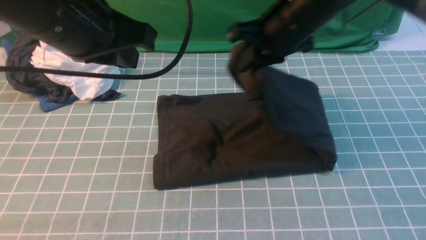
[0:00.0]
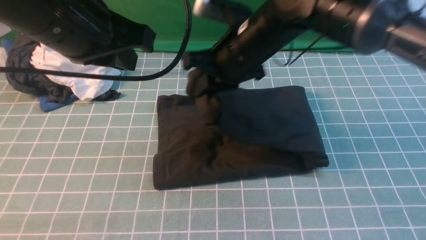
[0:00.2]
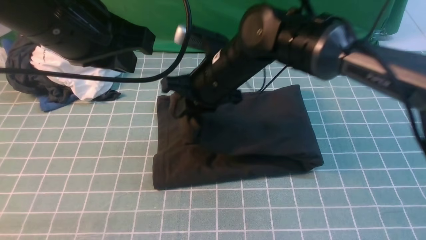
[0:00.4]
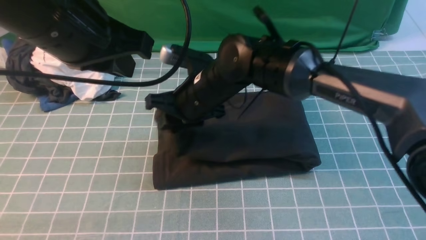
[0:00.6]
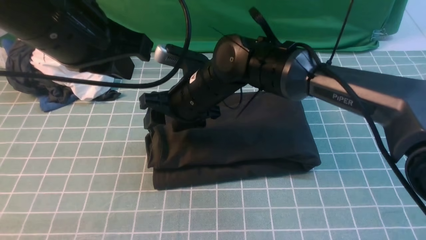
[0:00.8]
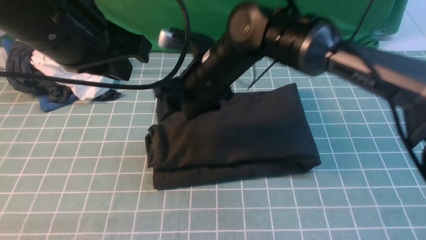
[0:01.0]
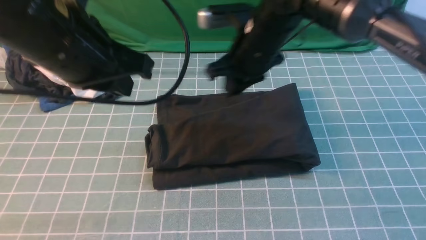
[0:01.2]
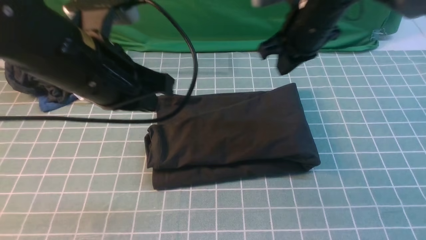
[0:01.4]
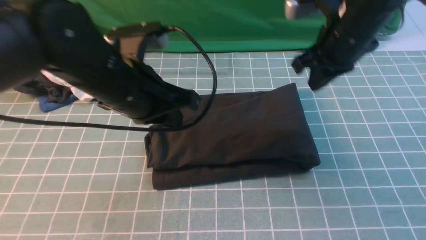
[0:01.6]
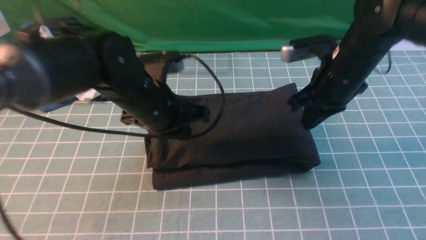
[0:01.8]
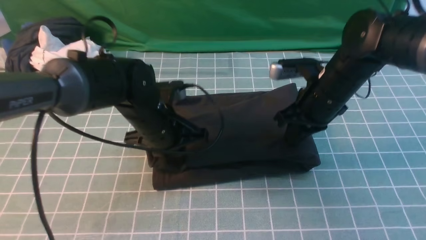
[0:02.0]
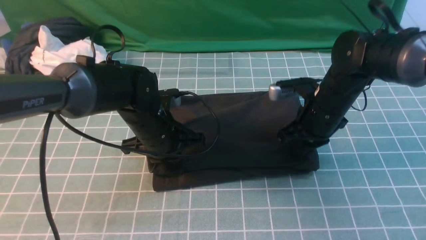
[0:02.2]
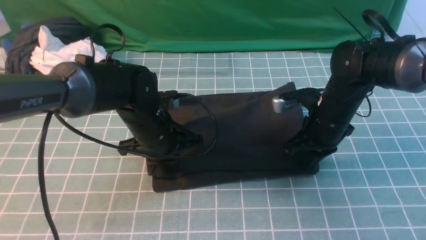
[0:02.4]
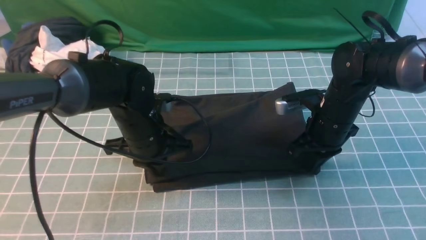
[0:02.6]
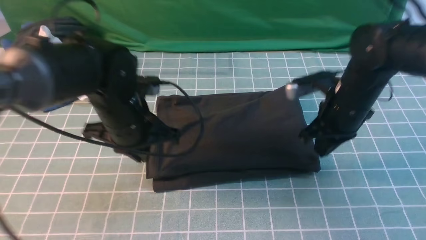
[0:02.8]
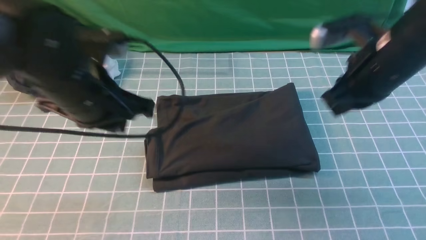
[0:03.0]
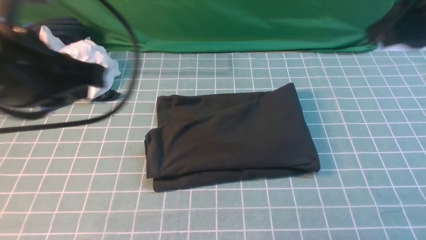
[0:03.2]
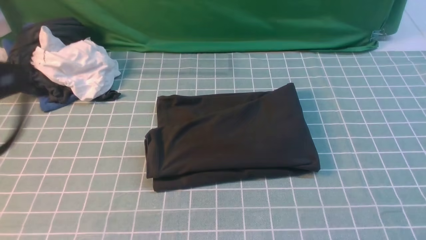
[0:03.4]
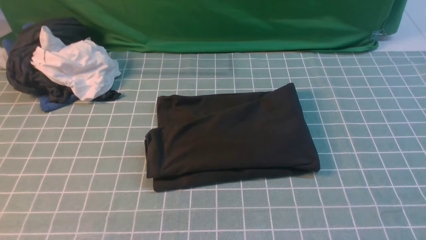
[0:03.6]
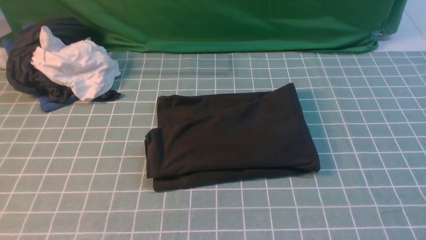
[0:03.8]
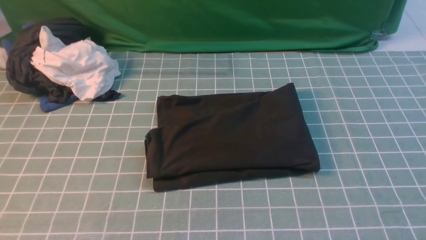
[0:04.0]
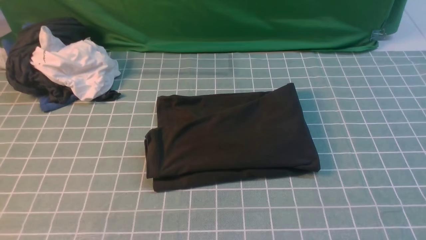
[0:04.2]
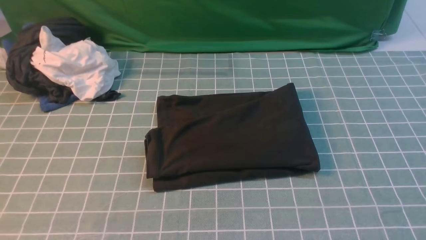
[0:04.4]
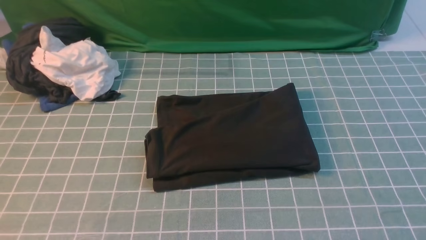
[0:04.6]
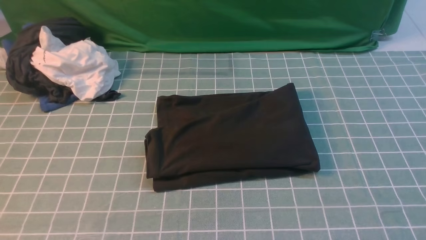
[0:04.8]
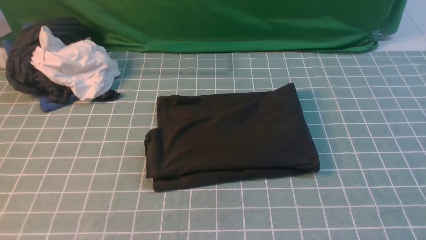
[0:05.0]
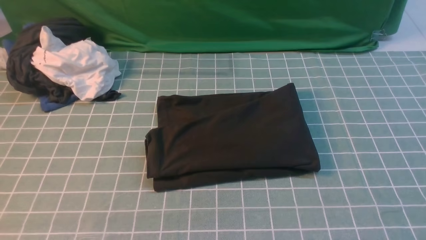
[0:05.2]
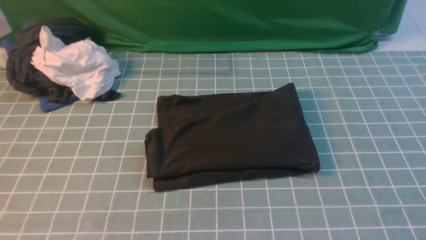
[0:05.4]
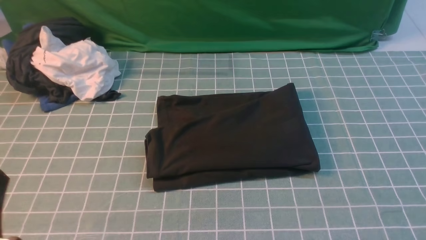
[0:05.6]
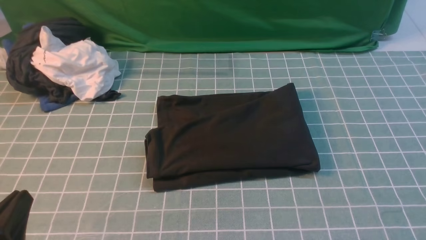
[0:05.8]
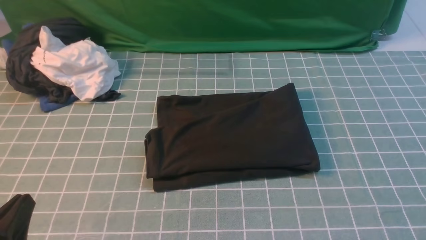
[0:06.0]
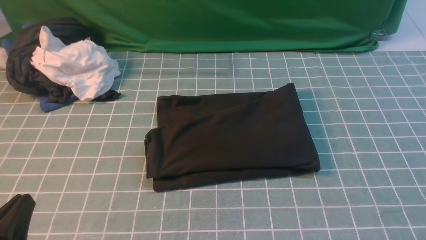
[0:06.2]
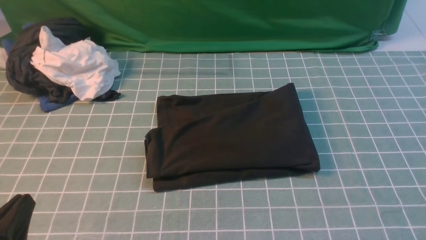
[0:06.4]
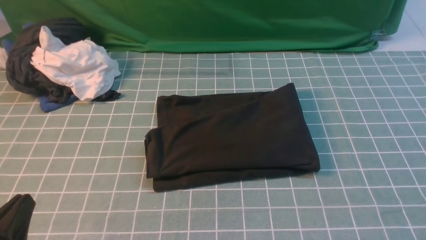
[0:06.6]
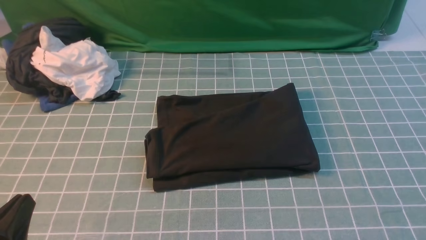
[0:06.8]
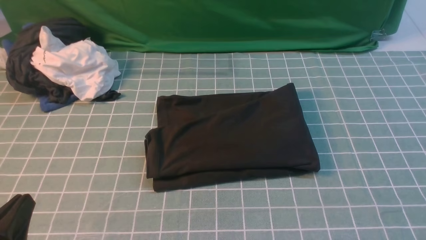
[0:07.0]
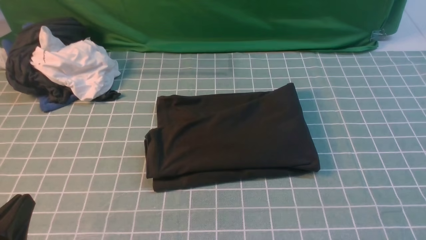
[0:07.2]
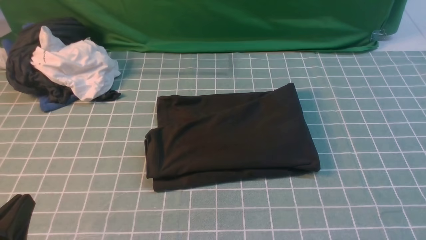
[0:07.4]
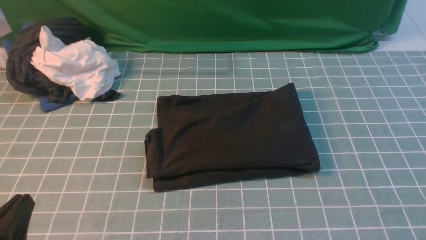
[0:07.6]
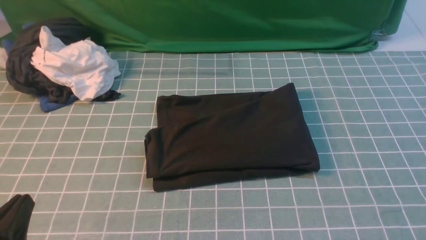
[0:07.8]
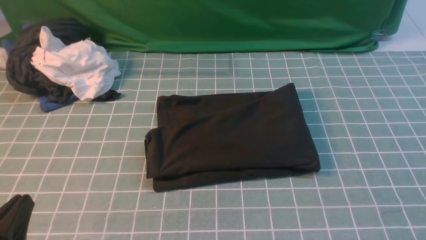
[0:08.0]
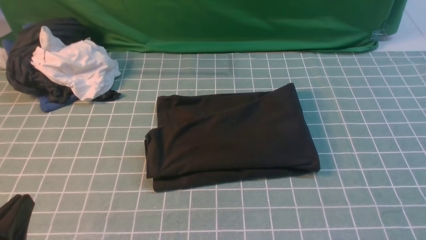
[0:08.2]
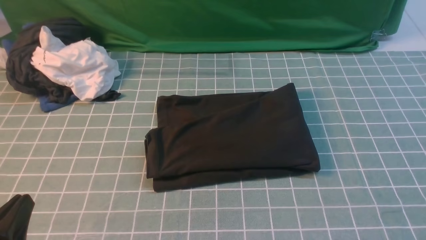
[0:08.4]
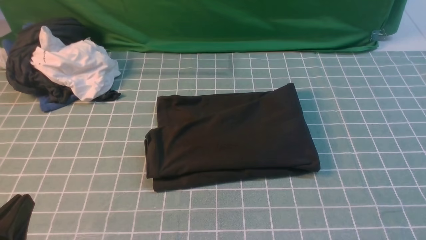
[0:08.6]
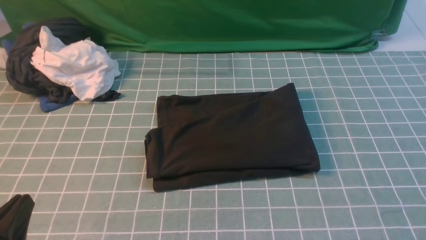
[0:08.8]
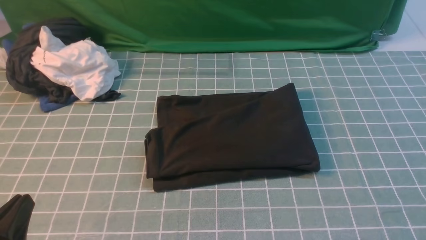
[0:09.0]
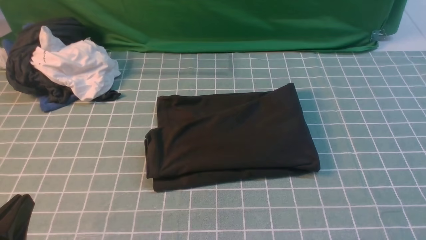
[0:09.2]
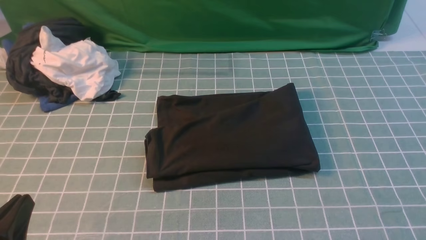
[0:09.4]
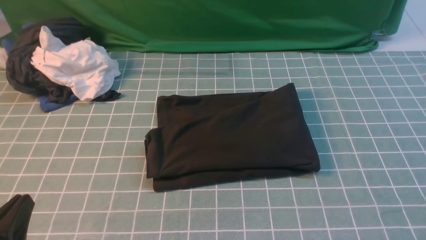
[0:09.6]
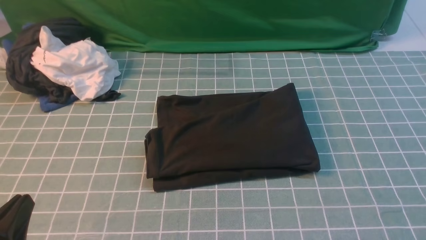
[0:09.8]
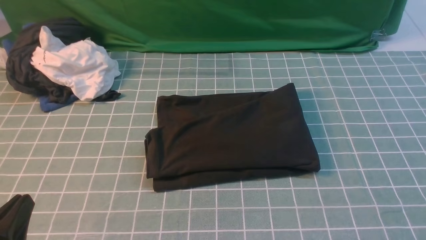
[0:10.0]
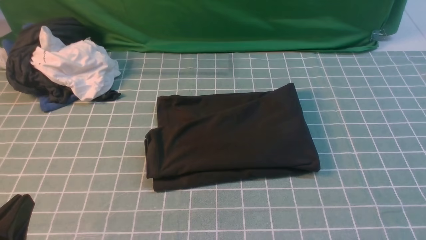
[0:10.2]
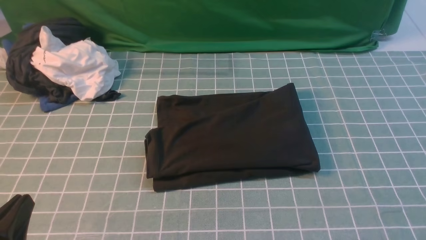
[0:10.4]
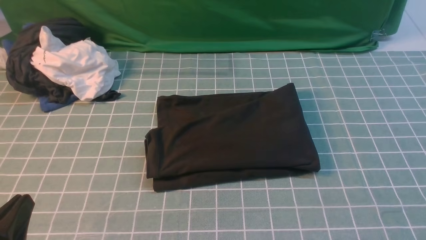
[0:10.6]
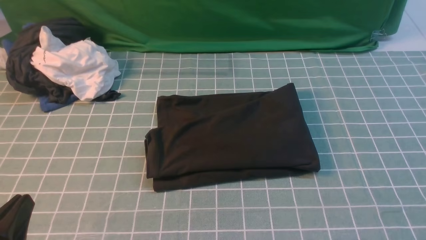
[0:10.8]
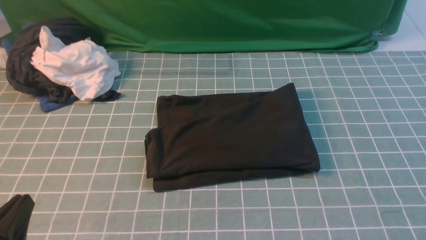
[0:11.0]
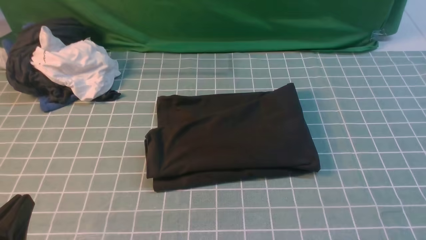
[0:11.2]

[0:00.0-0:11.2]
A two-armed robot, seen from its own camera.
Step, 0:00.0 to 0:01.2: use the right arm to drag the right edge of the fabric to the left and folds it over the left edge.
0:00.0 to 0:01.6: The right gripper heads to the right, covering approximately 5 cm, and opens, then closes again; the left gripper moves downward, some 10 cm.
0:01.6 to 0:03.2: The left gripper is displaced backward, upward and to the left by approximately 15 cm, while the right gripper moves backward, upward and to the right, about 20 cm.
0:03.2 to 0:04.8: The left gripper travels backward and downward by roughly 20 cm. Meanwhile the right gripper shifts some 20 cm backward and to the right.
0:04.8 to 0:06.4: The left gripper shifts approximately 10 cm downward.
0:08.0 to 0:11.2: Both grippers stay about where they are.

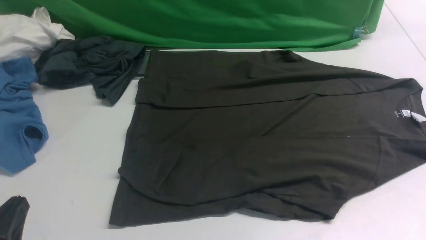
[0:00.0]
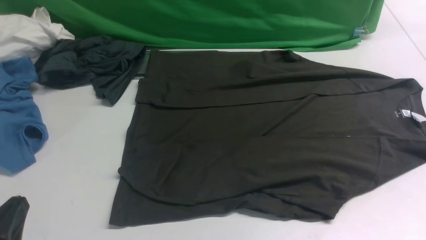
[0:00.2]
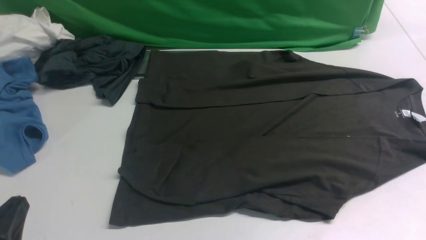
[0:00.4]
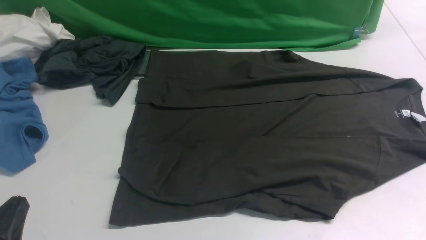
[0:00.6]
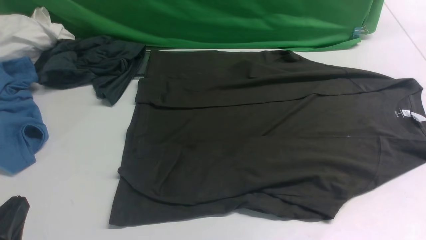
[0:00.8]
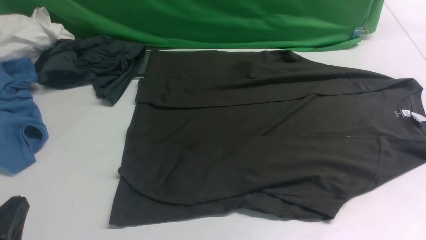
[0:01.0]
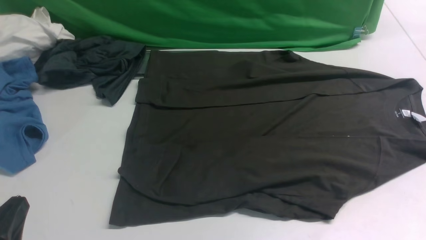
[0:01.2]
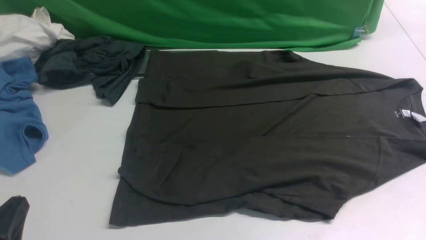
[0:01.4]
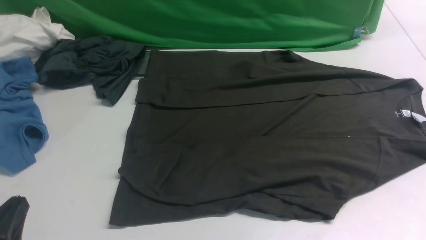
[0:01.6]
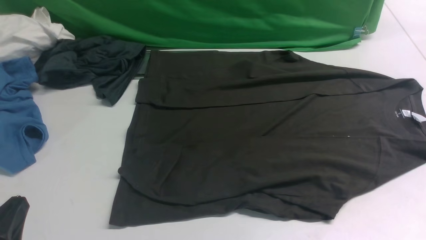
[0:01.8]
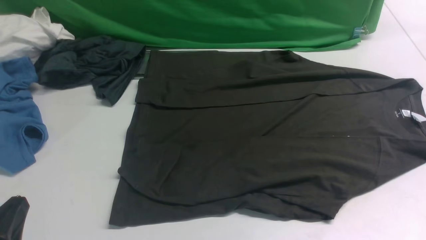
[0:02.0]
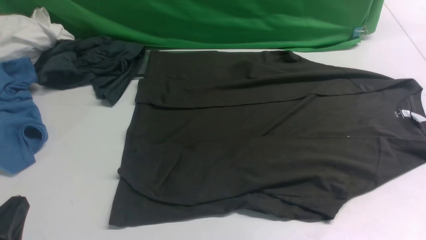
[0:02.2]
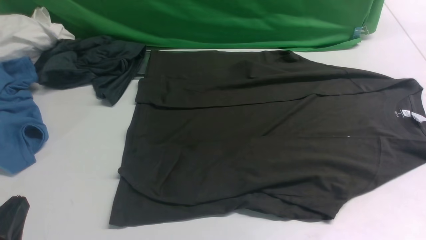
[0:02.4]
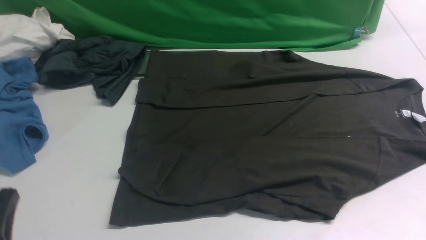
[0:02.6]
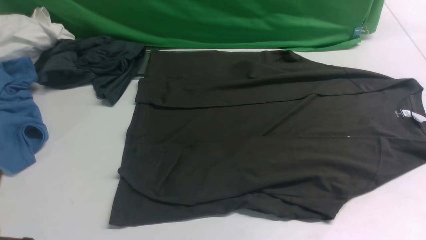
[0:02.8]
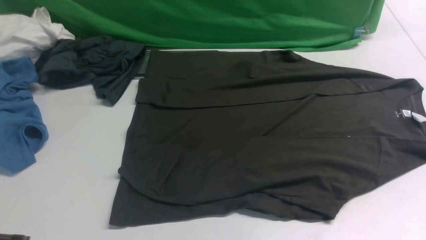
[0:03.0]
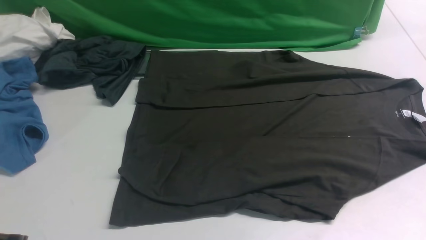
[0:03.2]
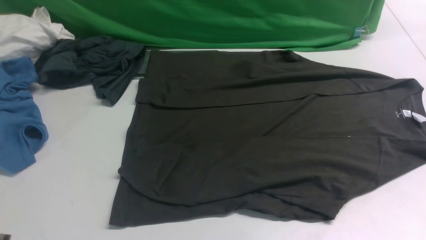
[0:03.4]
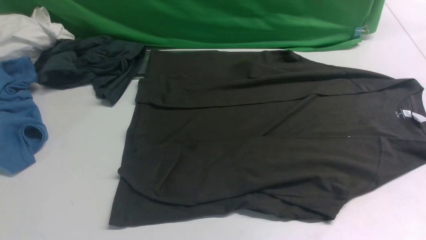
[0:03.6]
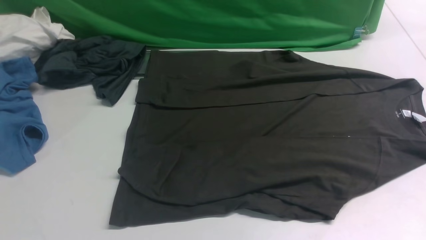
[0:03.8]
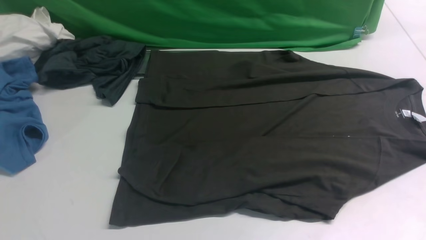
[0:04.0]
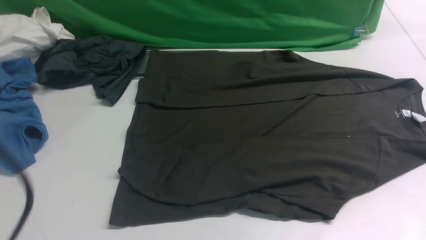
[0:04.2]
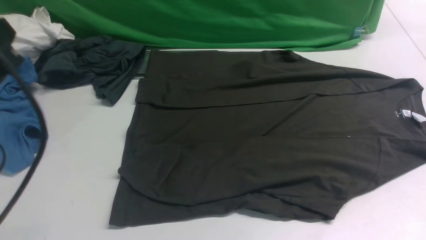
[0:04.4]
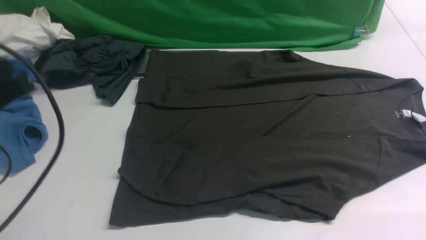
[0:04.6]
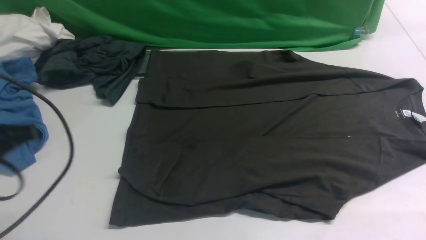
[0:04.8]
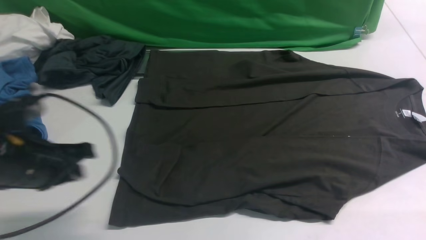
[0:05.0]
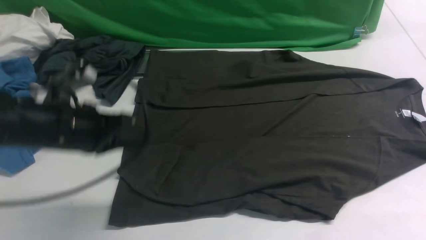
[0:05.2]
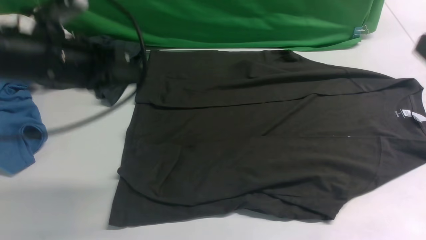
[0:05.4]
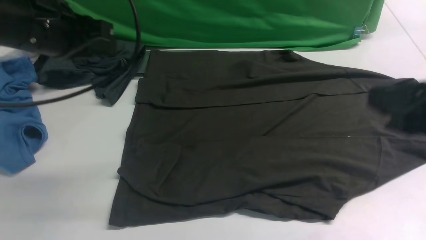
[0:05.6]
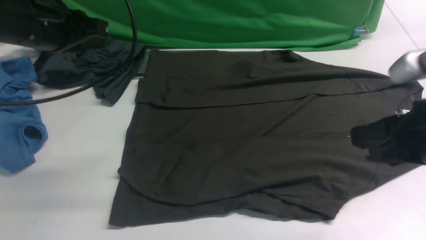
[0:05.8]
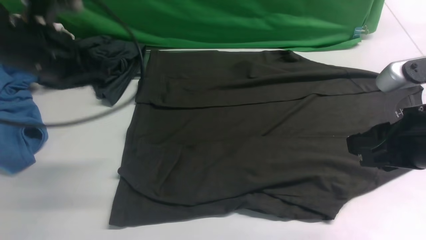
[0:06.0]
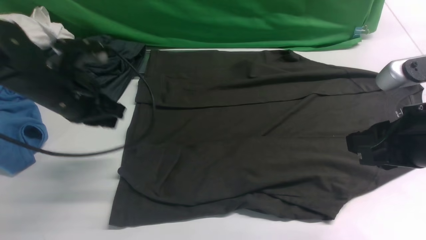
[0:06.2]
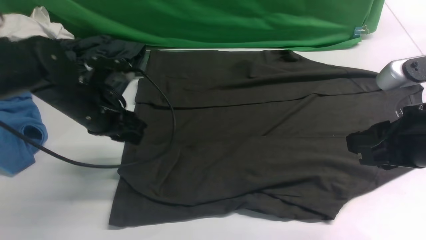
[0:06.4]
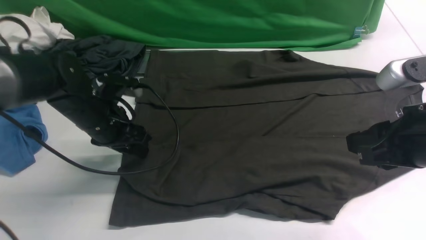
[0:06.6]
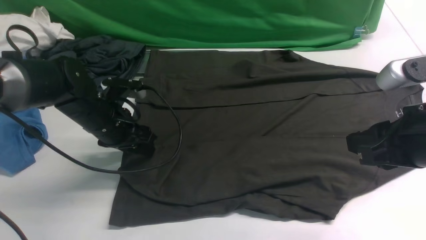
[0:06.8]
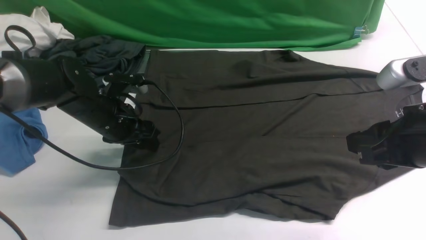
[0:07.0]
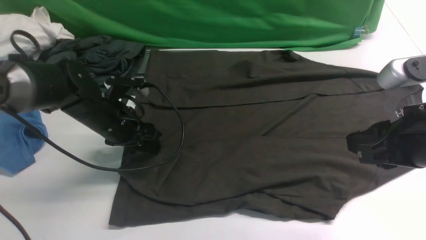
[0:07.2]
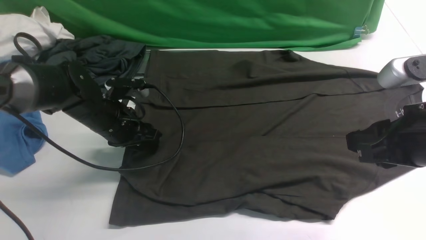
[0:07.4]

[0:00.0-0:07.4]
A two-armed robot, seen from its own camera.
0:00.0 to 0:01.4: Neither gripper changes place.
0:03.0 to 0:04.4: The left gripper is displaced forward and upward by some 15 cm.
0:04.4 to 0:06.0: The left gripper heads forward, covering some 15 cm. The right gripper heads to the left and downward, covering about 10 cm.
0:06.0 to 0:07.4: The left gripper is displaced downward by roughly 15 cm.
